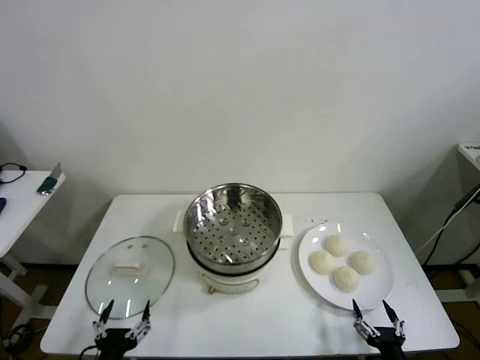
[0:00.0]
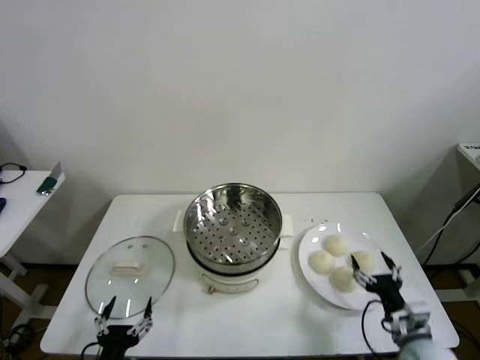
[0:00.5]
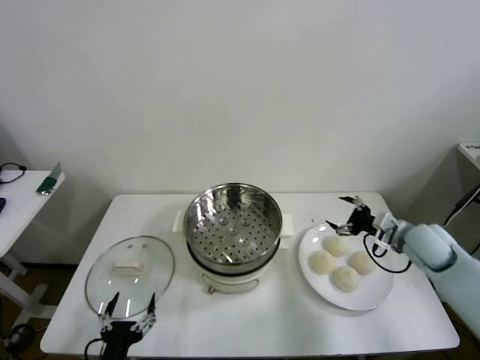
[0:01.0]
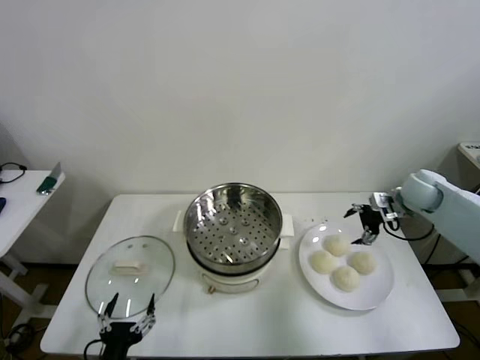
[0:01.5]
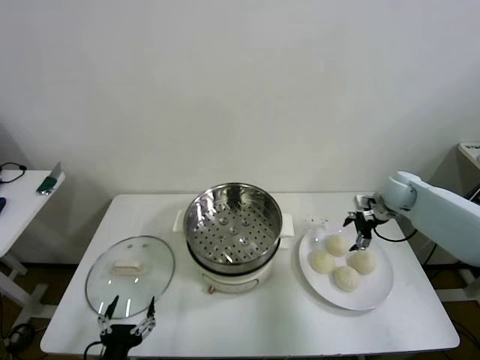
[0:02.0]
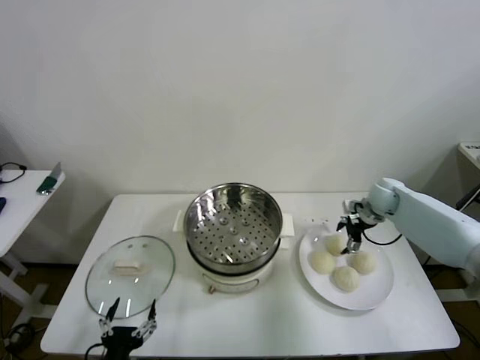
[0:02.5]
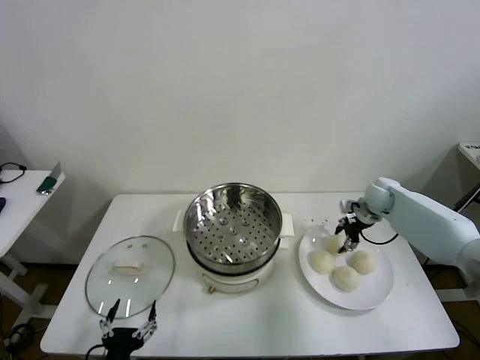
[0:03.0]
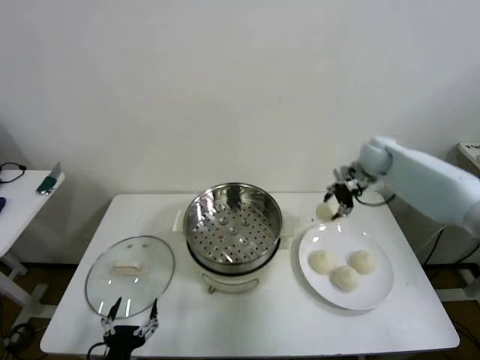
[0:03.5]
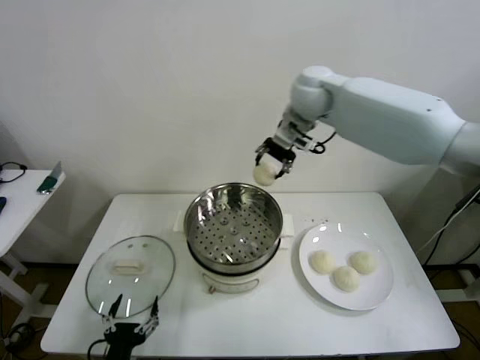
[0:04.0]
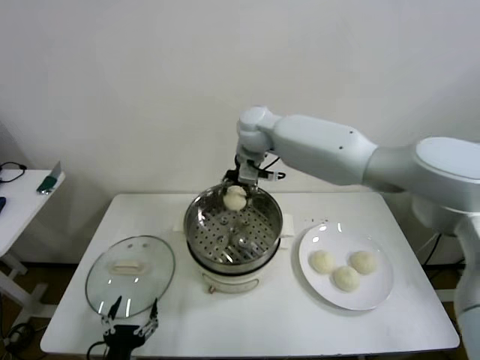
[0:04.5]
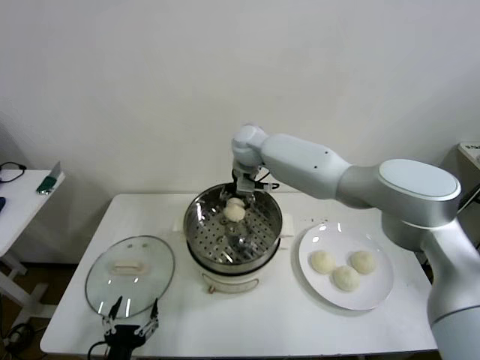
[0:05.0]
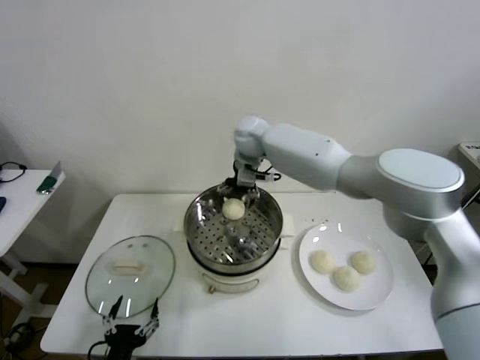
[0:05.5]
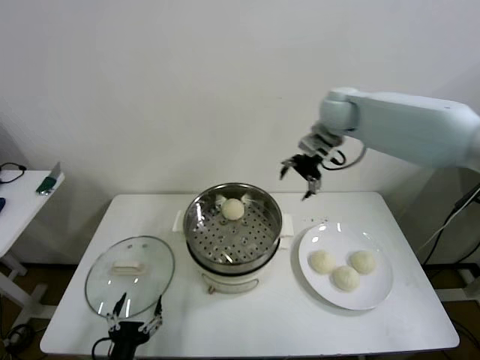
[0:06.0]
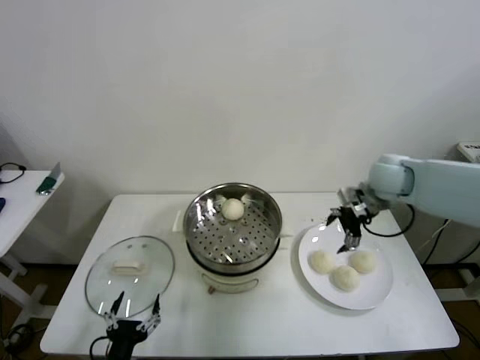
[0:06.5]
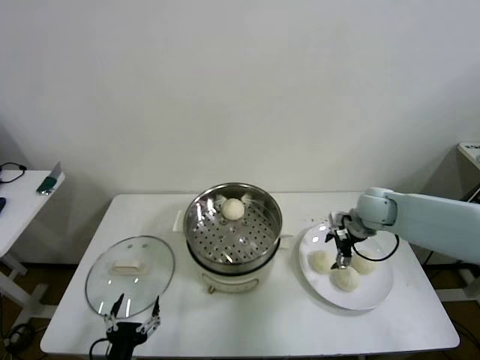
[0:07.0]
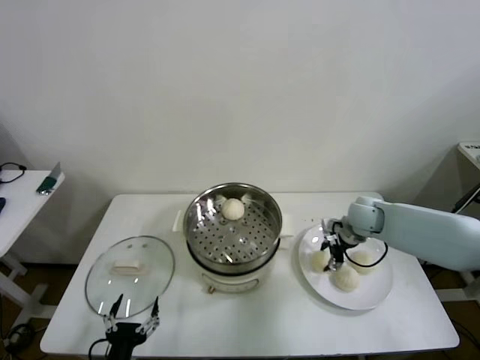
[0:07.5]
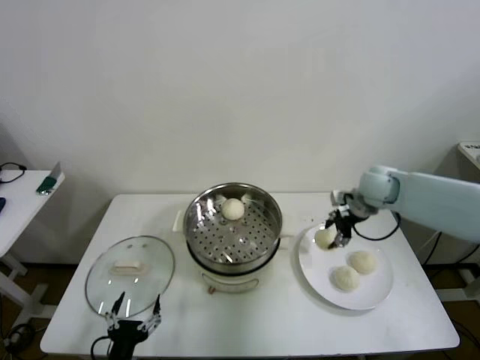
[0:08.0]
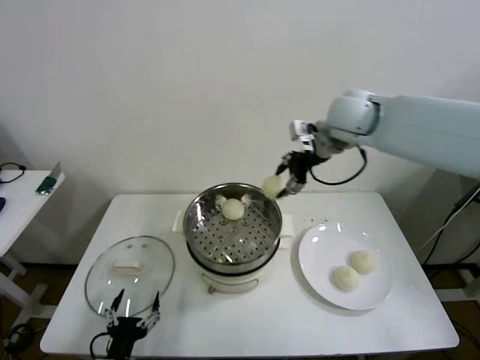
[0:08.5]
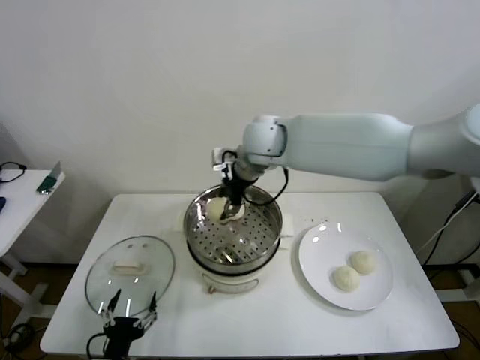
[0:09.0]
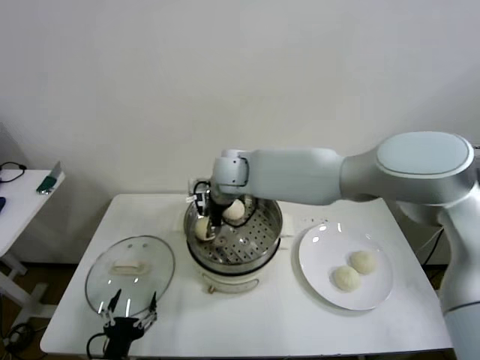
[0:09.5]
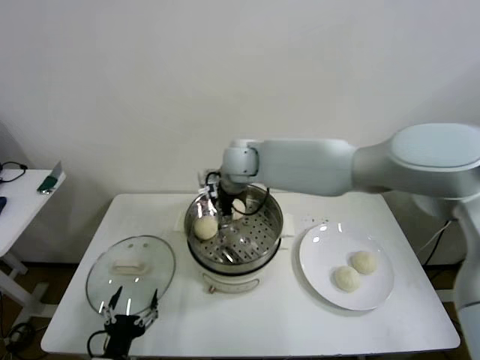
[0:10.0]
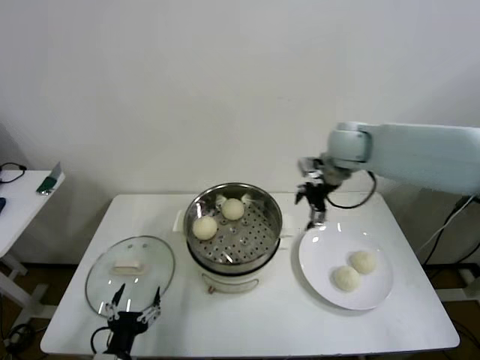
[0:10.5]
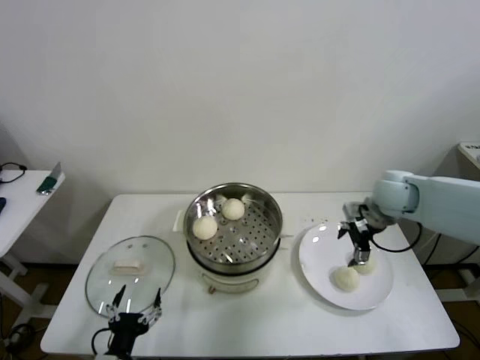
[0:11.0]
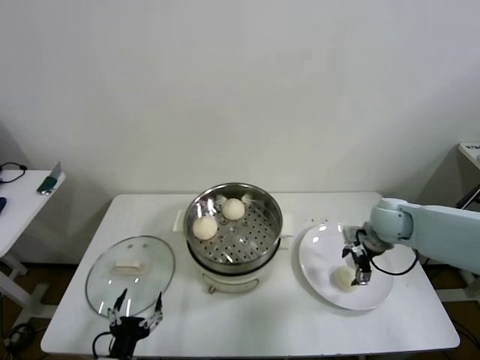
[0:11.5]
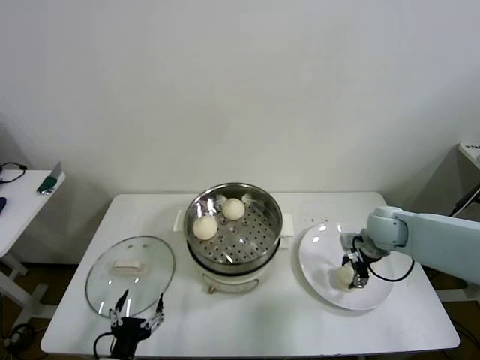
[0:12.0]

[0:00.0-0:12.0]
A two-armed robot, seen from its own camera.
Step, 0.0 to 3.0 s: Grasp the baozi in the plate with right gripper.
Step, 3.5 to 5.5 s: Place the baozi on the steamer with right gripper.
Step, 6.0 to 7.5 s: Grasp the baozi in the plate with right gripper.
Step, 8.0 to 10.0 s: Place the baozi on the steamer with right gripper.
2.0 to 4.0 s: The right gripper travels to the left and upward by approximately 40 cm, and closes.
4.0 to 6.0 s: The right gripper is displaced to the right by approximately 15 cm, and opens its fingers.
6.0 to 8.0 s: The right gripper goes about 15 cm downward and to the right, and closes.
8.0 to 10.0 s: The right gripper shifts approximately 30 cm to the left, and opens.
10.0 to 12.0 s: The right gripper is displaced to the right and downward by about 35 cm, and closes.

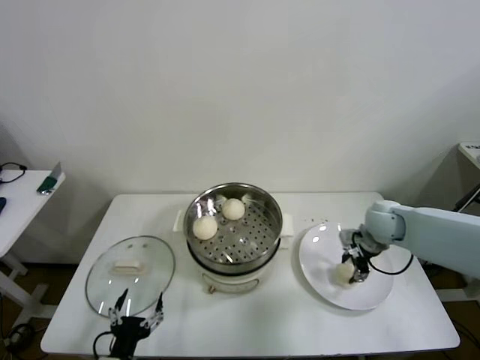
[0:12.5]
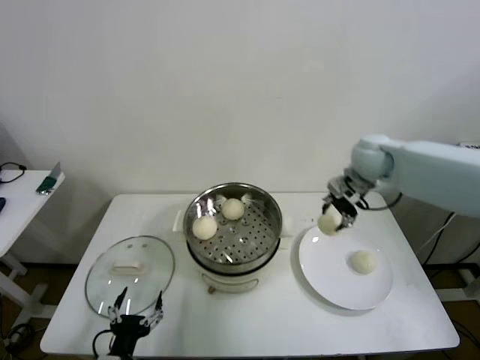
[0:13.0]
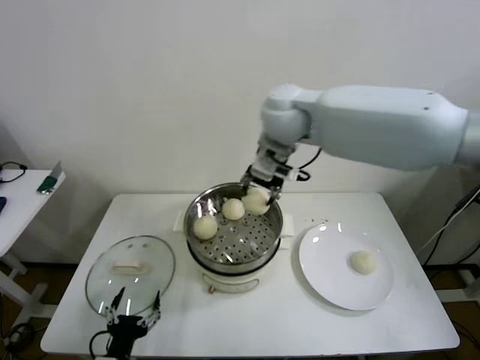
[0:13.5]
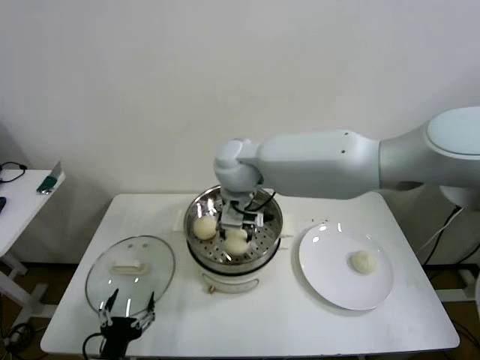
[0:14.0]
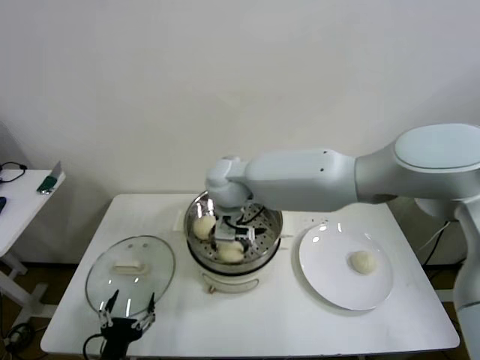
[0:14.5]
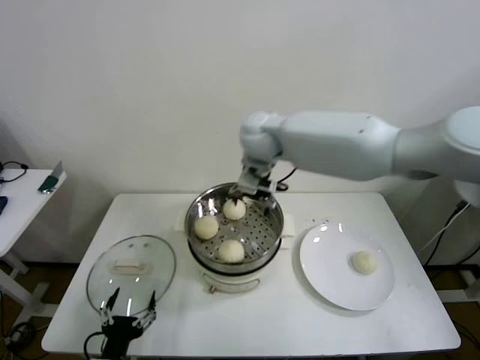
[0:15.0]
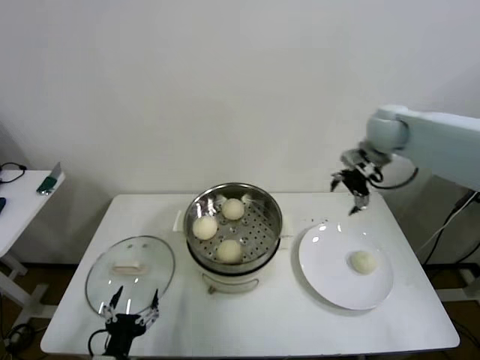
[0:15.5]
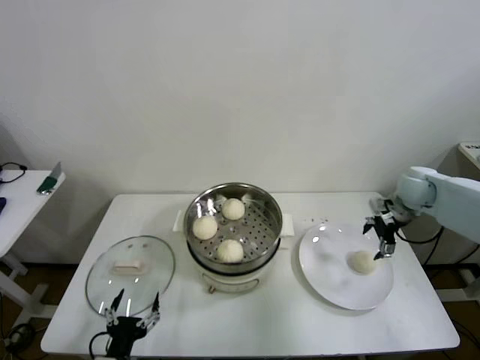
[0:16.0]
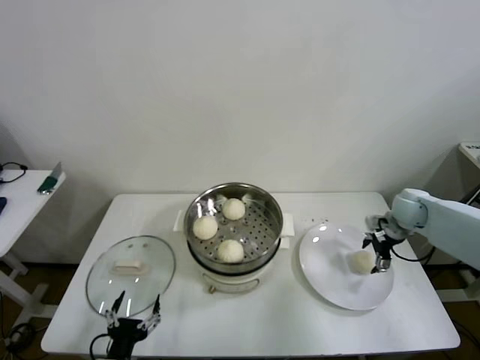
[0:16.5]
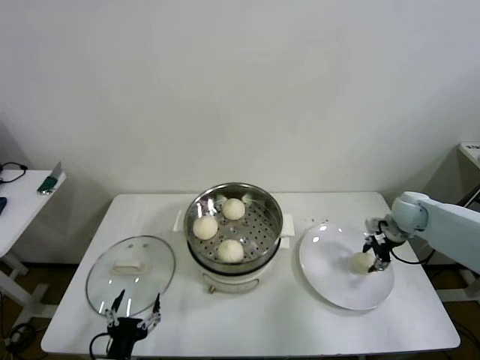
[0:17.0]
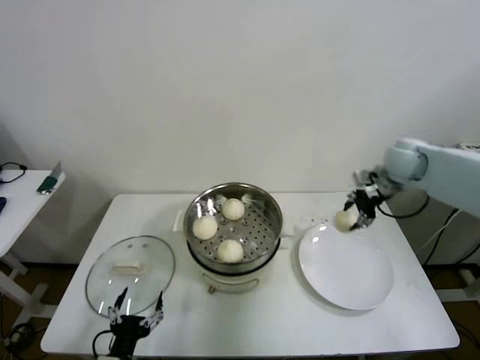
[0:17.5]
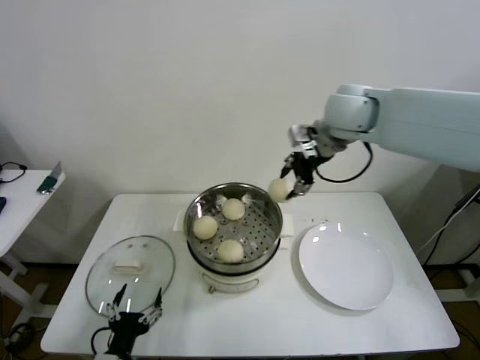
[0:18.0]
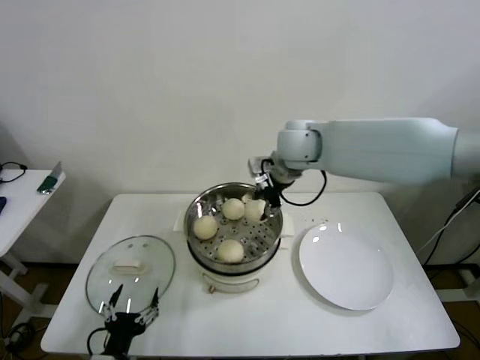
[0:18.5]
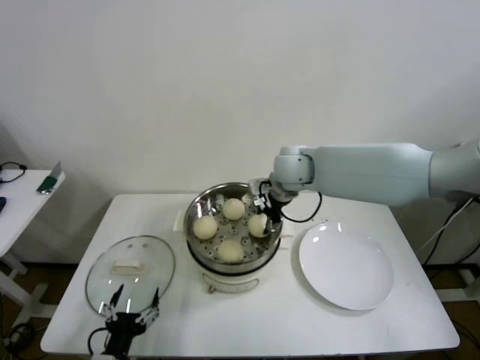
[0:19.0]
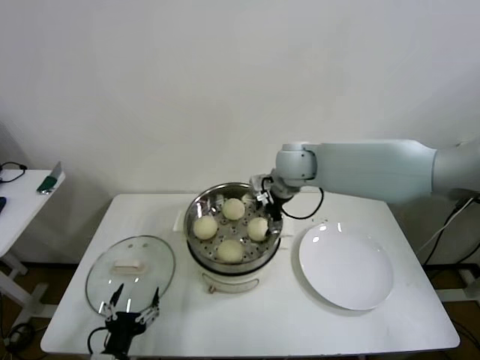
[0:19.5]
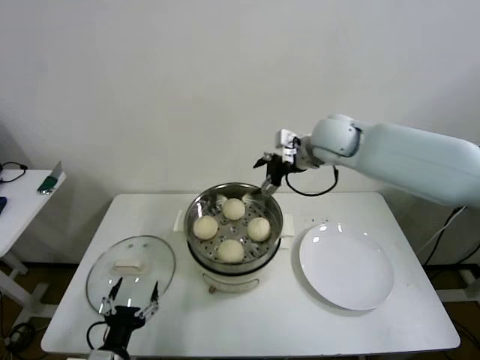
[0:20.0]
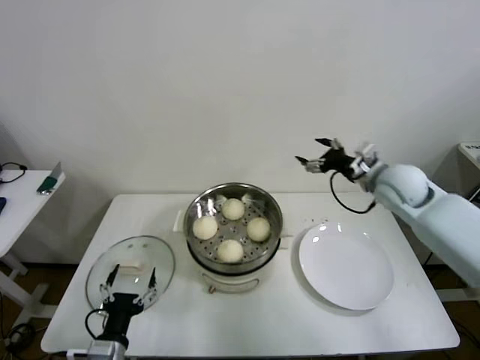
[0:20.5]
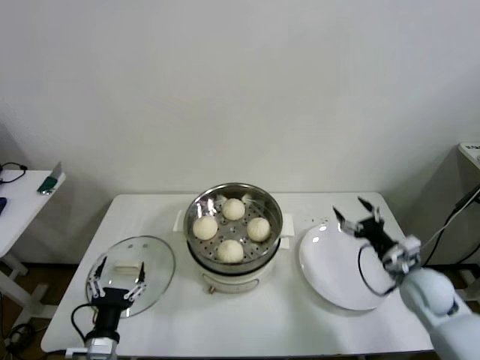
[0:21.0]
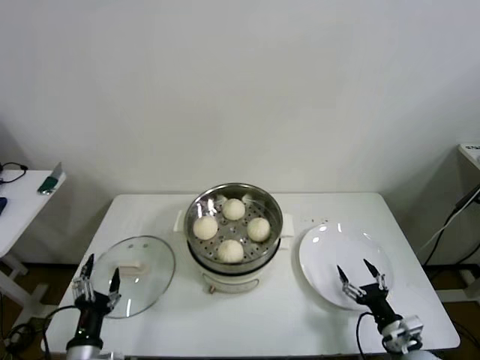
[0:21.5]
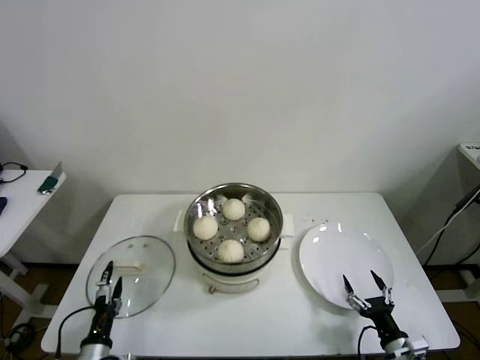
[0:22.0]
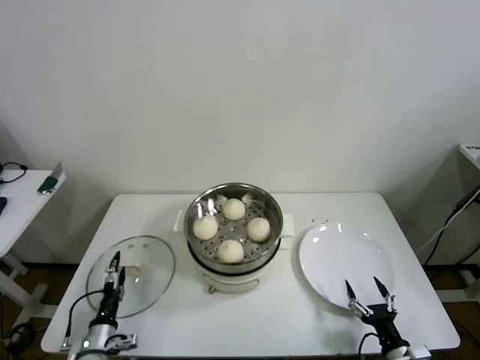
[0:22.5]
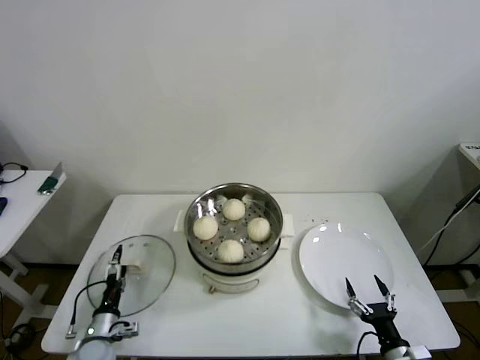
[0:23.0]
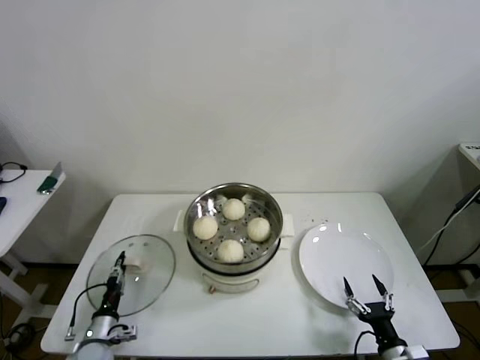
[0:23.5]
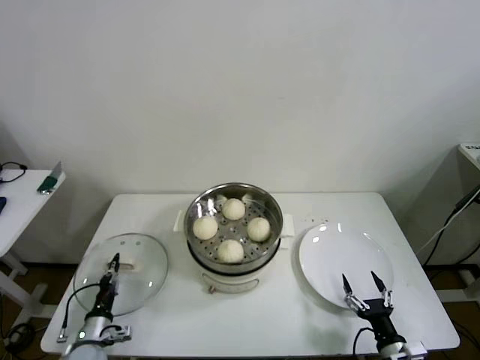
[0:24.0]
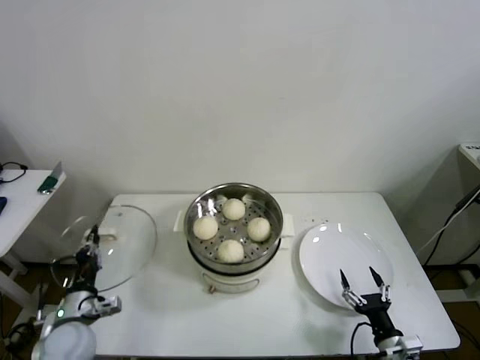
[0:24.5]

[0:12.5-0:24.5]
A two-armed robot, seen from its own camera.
Step, 12.5 to 14.5 s: Place the baozi on the steamer with right gripper.
Step, 15.0 to 17.0 s: Grasp the baozi in the plate with right gripper.
Step, 17.5 to 19.5 s: Place the baozi on the steamer with right gripper.
Step, 20.5 to 24.0 s: Grasp the pot lid with left gripper.
12.5 to 14.5 s: The right gripper is displaced to the left by roughly 35 cm, and opens up.
14.5 to 16.5 s: The right gripper goes about 50 cm to the right.
16.5 to 18.5 s: The right gripper travels to the left and upward by approximately 35 cm, and closes.
18.5 to 20.5 s: The right gripper travels to the right by some 20 cm, and opens.
20.5 to 22.5 s: The right gripper heads backward and downward, covering about 50 cm. Meanwhile the left gripper heads downward, to the left and forward, covering some 15 cm.
22.5 to 24.5 s: The left gripper travels upward by roughly 10 cm, and closes.

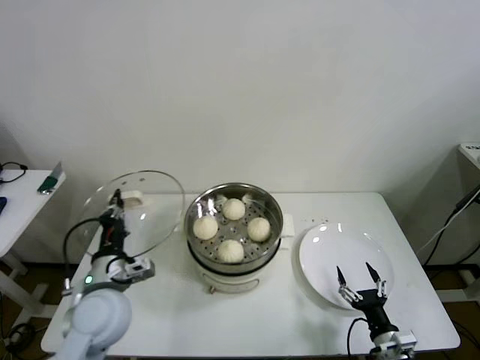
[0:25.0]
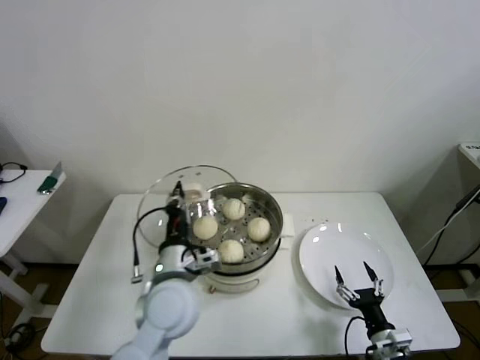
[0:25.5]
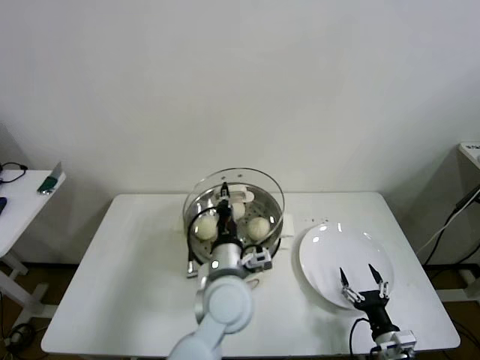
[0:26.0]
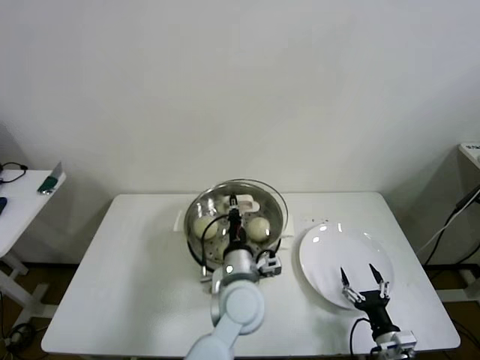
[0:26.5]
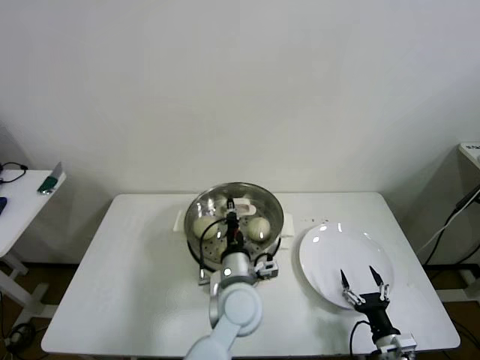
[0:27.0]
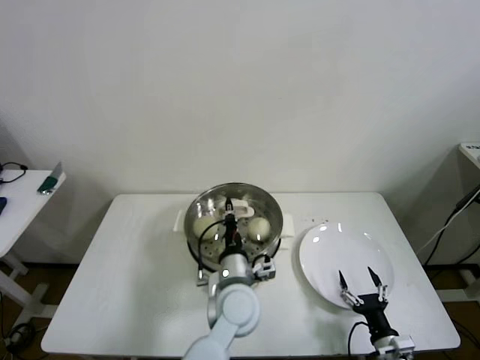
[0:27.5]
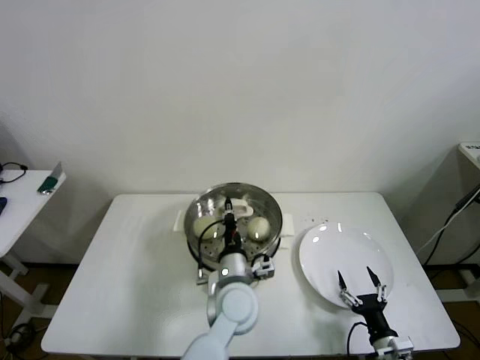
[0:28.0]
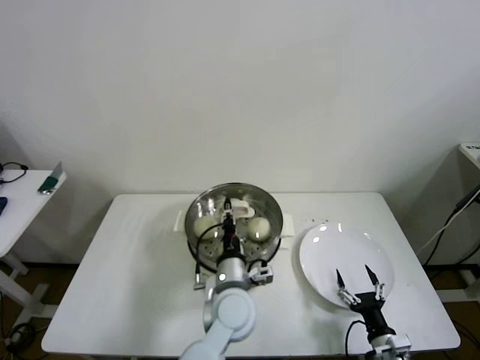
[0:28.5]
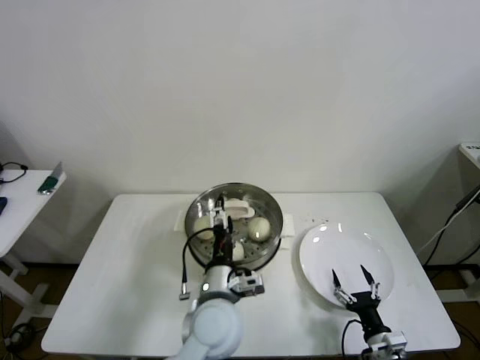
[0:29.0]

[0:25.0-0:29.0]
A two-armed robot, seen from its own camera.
25.0 to 27.0 s: The left gripper heads to the right, covering some 25 cm.
27.0 to 29.0 s: The left gripper opens up.
